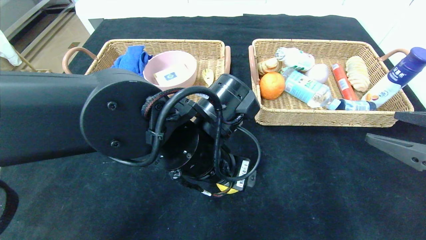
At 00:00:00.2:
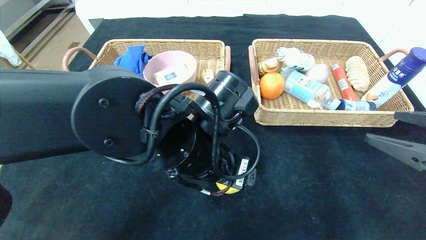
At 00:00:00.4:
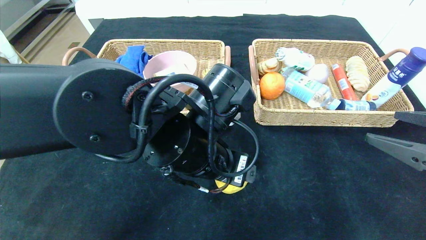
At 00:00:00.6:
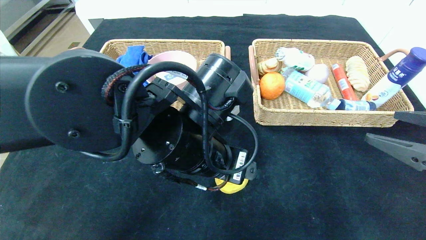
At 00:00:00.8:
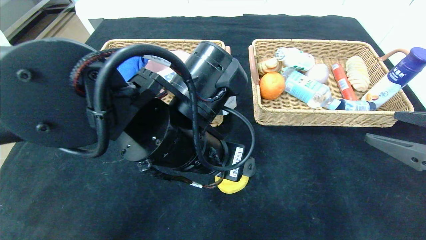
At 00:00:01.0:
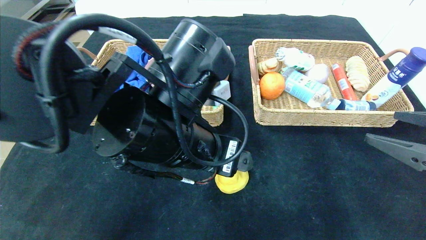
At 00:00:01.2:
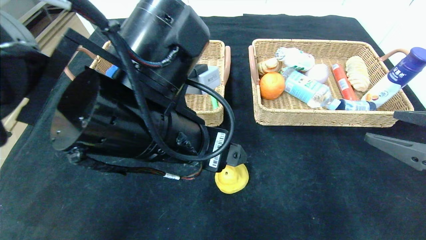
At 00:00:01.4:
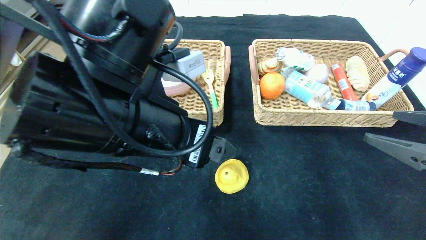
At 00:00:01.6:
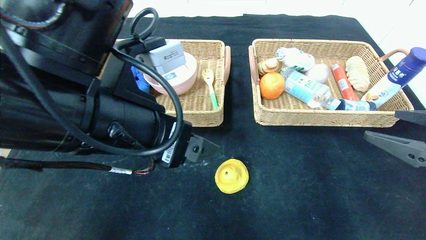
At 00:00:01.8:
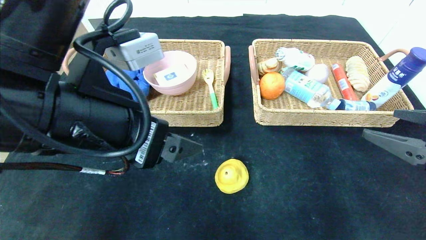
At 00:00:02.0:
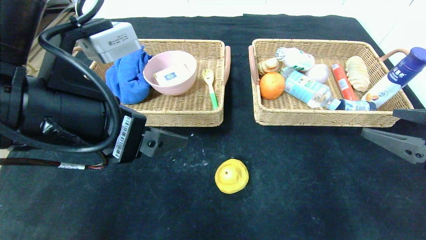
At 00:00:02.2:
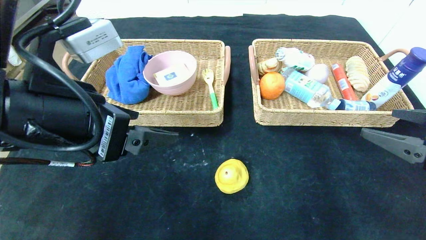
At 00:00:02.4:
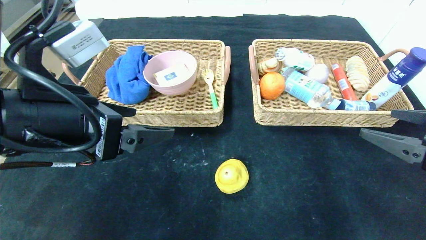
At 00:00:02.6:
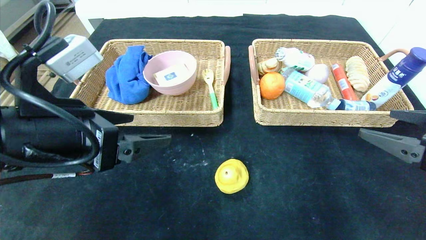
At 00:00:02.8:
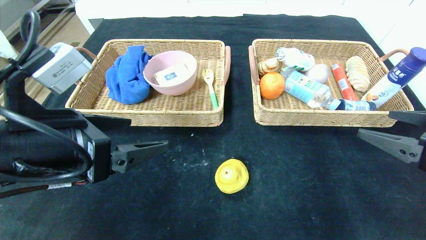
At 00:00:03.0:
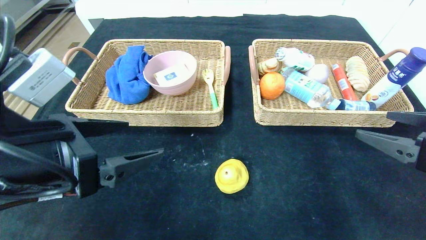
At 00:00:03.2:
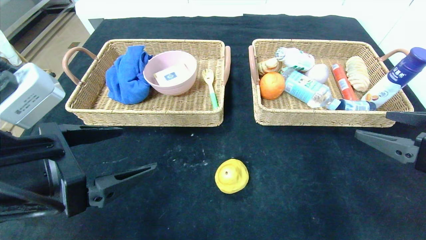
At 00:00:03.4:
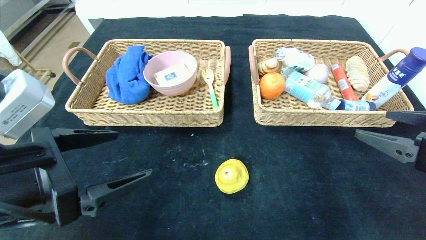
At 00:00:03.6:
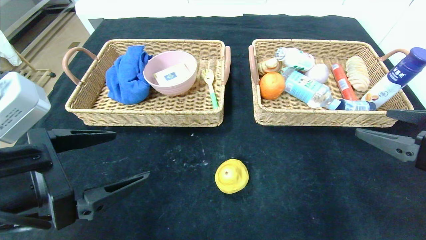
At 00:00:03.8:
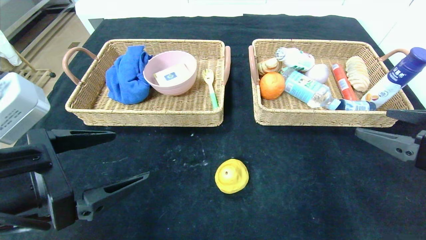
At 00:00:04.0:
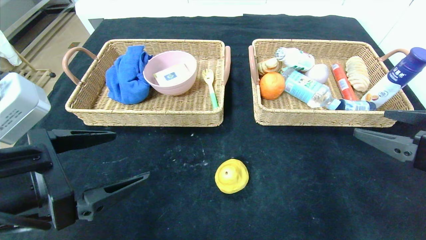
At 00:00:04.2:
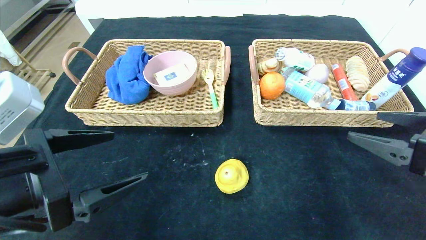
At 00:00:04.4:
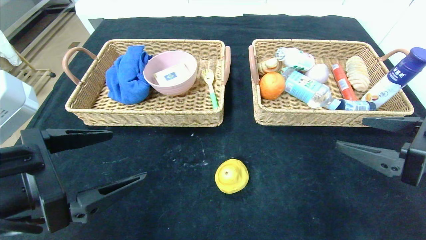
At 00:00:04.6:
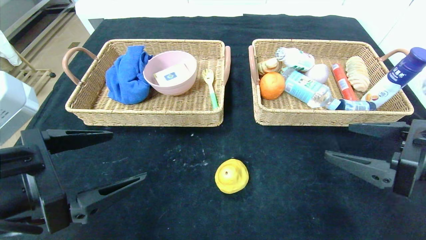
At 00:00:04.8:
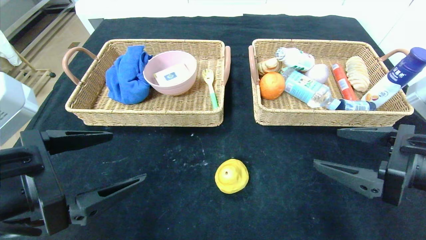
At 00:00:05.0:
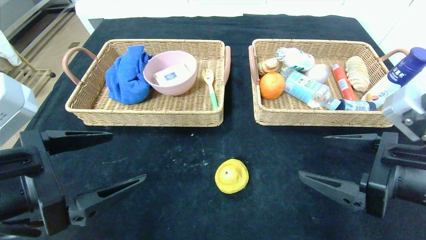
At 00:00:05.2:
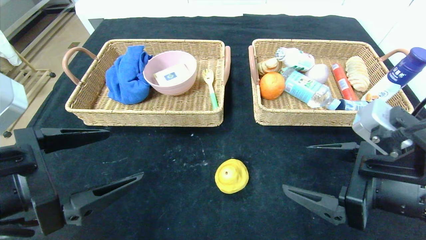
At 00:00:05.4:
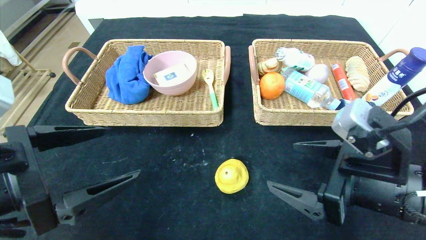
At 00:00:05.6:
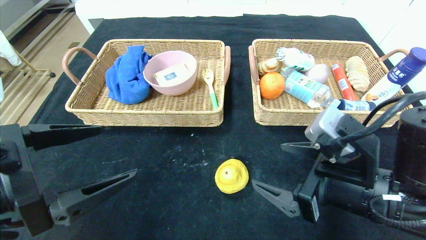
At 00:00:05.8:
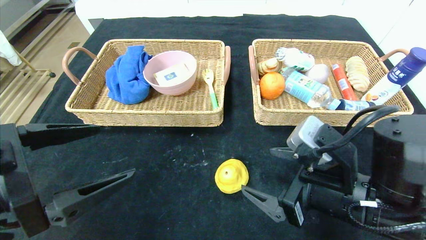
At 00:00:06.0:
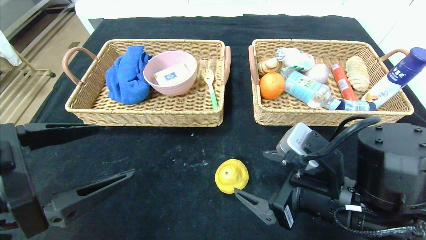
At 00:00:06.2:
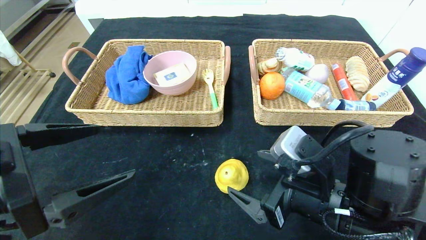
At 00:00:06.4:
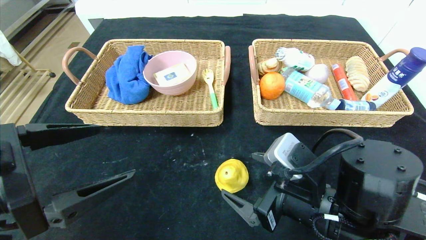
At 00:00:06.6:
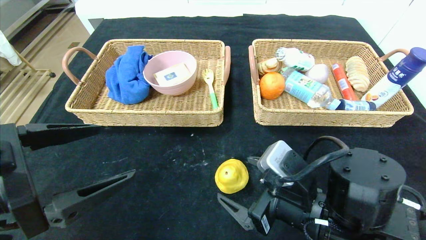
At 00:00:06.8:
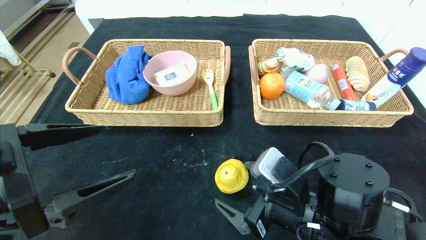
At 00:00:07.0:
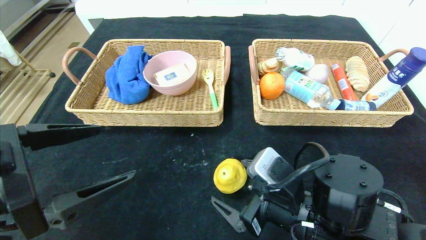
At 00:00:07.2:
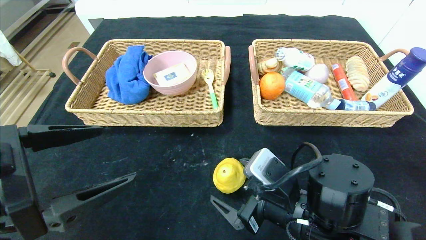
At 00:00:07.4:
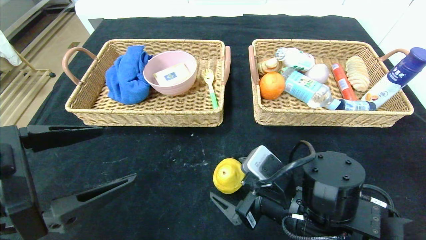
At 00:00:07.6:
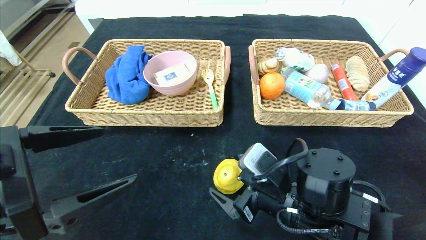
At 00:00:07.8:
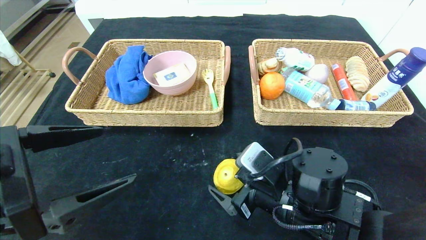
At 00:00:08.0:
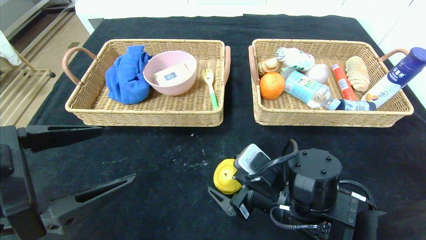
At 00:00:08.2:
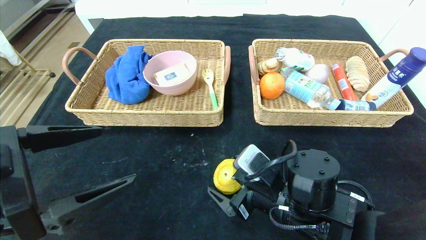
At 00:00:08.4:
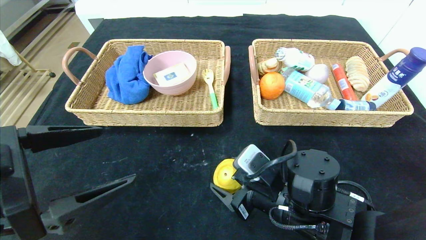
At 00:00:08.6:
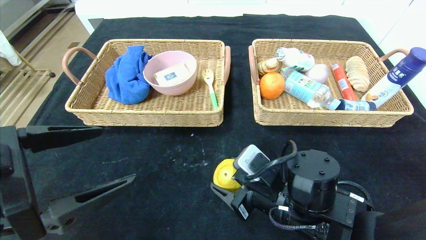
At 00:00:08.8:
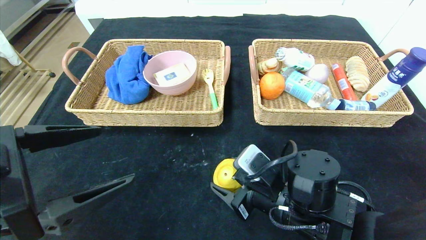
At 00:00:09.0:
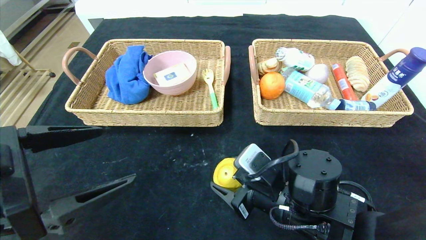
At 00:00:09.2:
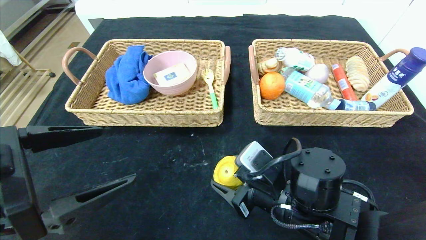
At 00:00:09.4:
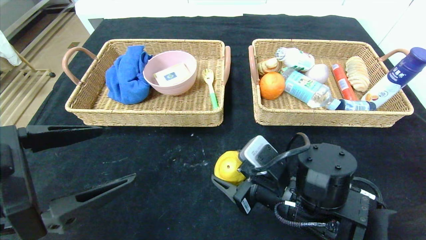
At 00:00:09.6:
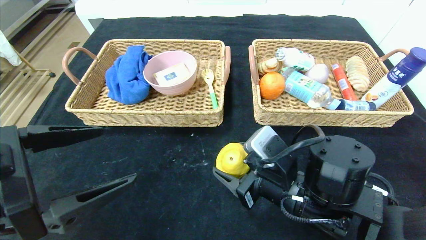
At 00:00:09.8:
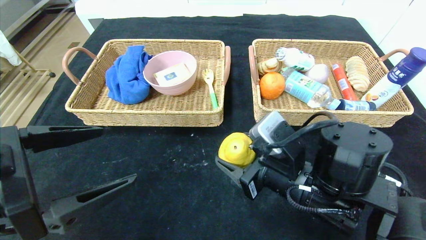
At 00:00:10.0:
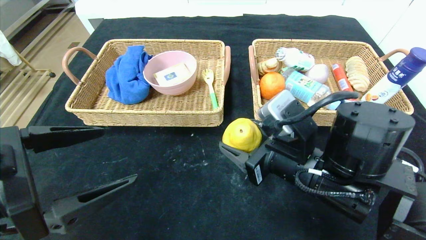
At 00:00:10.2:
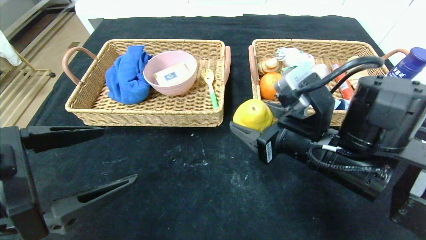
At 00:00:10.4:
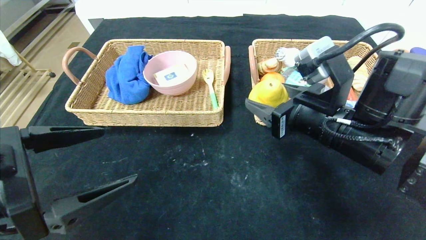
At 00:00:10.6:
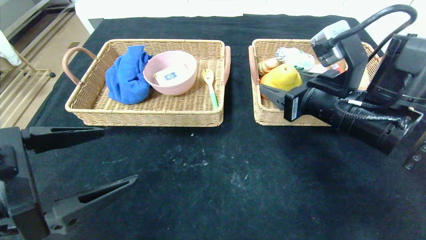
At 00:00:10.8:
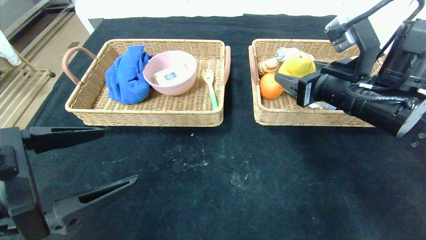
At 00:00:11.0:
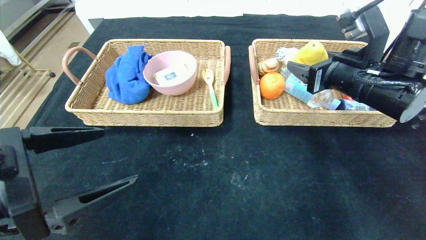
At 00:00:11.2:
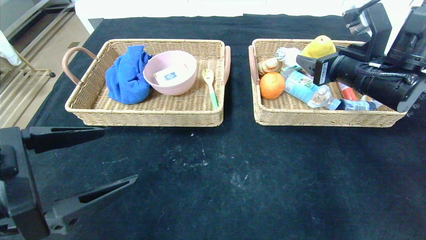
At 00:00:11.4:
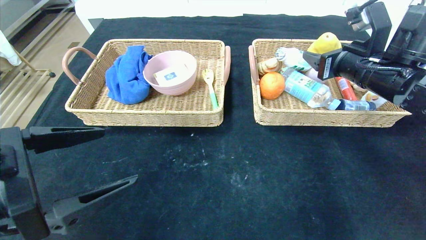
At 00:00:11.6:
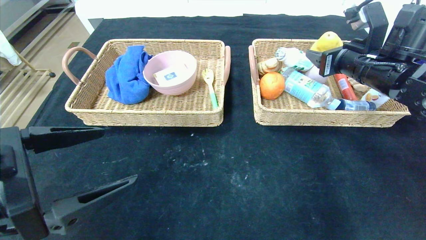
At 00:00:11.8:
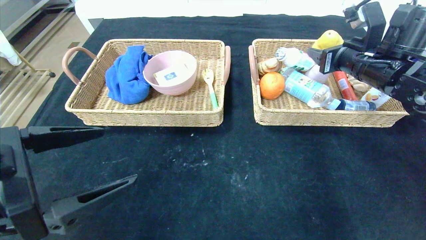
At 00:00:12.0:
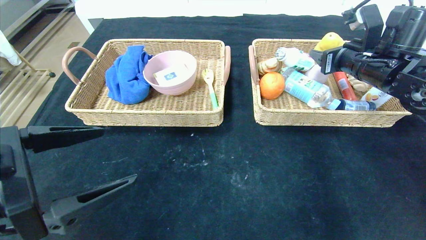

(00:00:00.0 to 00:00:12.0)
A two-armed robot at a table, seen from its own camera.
00:00:00.0 - 00:00:01.6: The left gripper moves to the left, upward and backward, some 15 cm.
00:00:01.6 - 00:00:03.0: The left gripper heads to the left, covering about 10 cm.
00:00:03.0 - 00:00:04.4: The grippers stay close to where they were, moving slightly.
00:00:04.4 - 00:00:06.0: The right gripper heads to the left and downward, covering about 15 cm.
00:00:06.0 - 00:00:07.6: The right gripper shifts by approximately 5 cm.
00:00:07.6 - 00:00:09.0: The right gripper closes up.
00:00:09.0 - 00:00:10.4: The right gripper moves upward and to the right, roughly 15 cm.
00:00:10.4 - 00:00:12.0: The right gripper is displaced forward, to the right and upward by approximately 20 cm.

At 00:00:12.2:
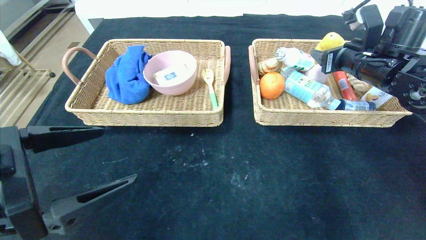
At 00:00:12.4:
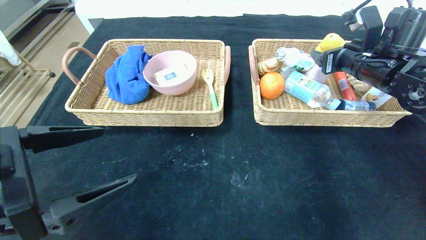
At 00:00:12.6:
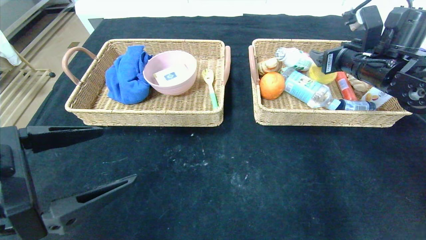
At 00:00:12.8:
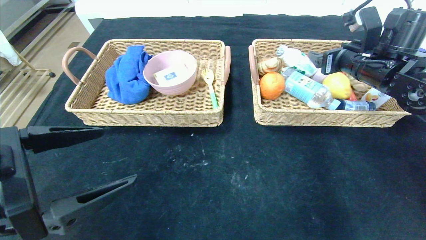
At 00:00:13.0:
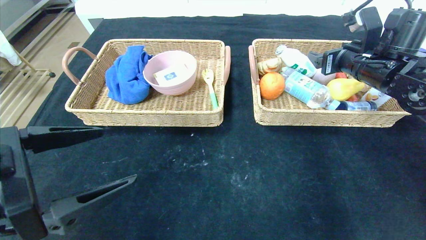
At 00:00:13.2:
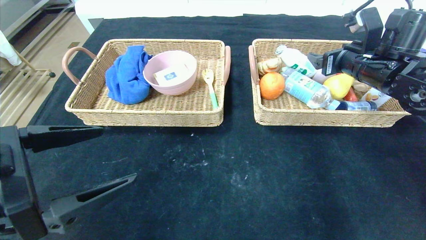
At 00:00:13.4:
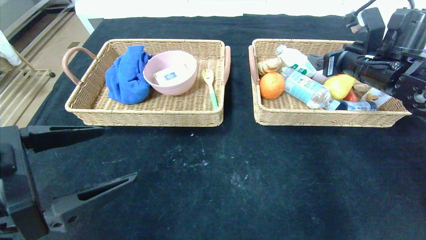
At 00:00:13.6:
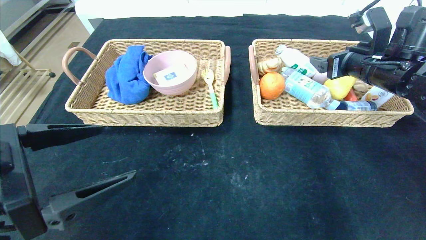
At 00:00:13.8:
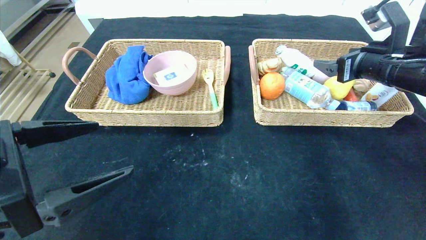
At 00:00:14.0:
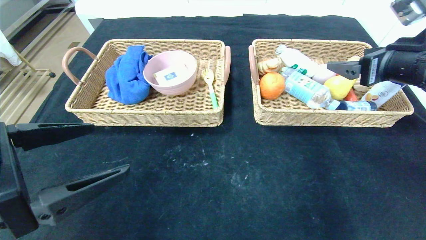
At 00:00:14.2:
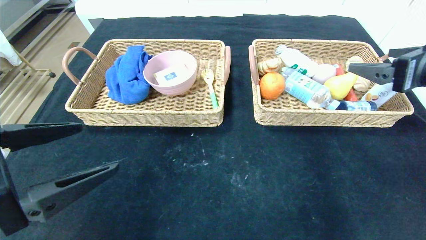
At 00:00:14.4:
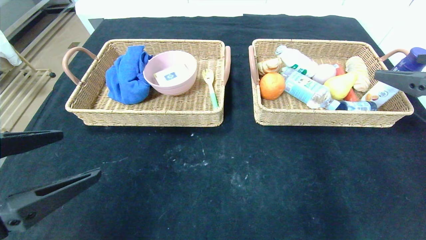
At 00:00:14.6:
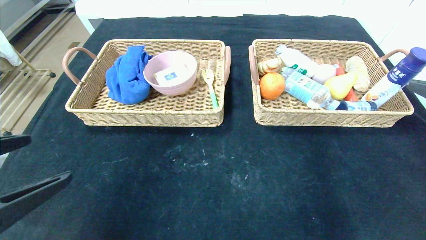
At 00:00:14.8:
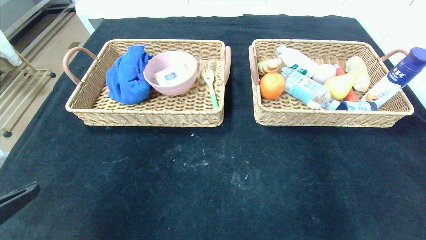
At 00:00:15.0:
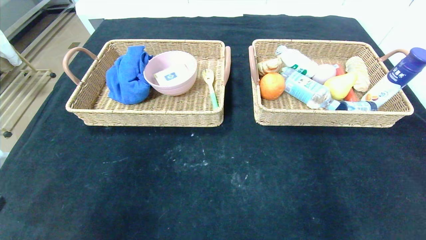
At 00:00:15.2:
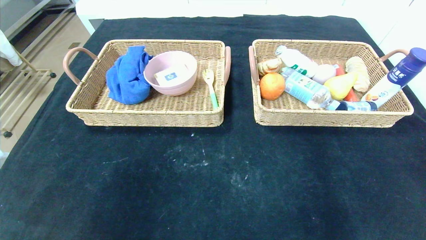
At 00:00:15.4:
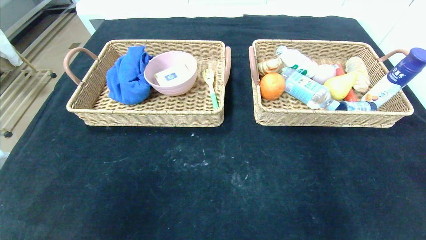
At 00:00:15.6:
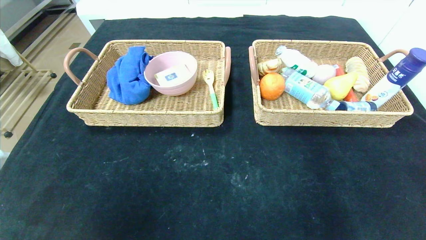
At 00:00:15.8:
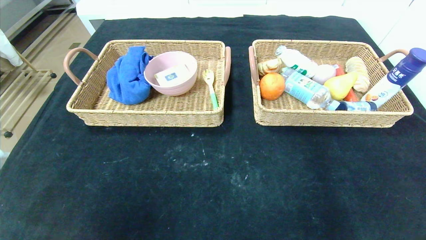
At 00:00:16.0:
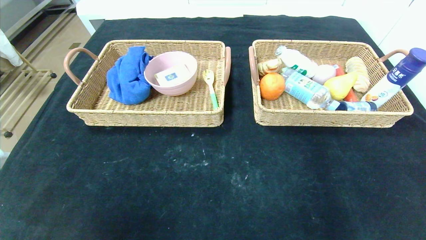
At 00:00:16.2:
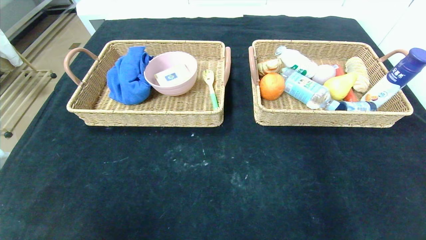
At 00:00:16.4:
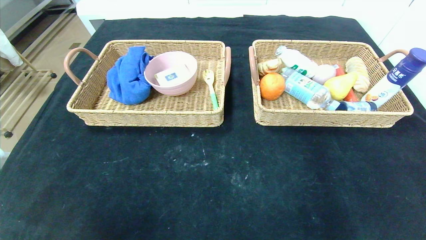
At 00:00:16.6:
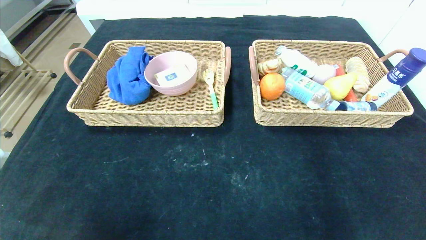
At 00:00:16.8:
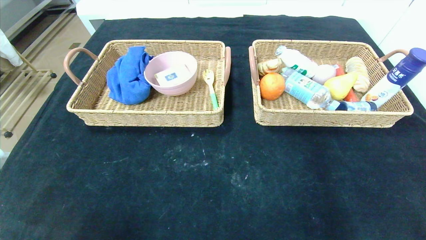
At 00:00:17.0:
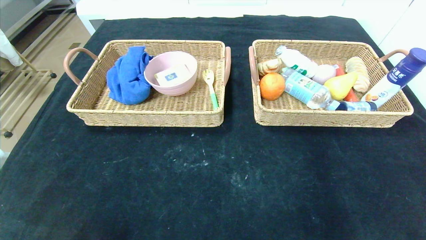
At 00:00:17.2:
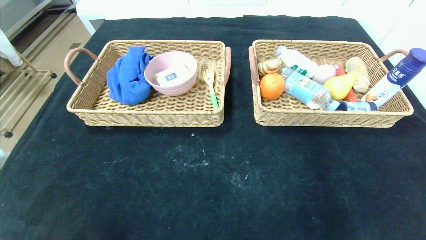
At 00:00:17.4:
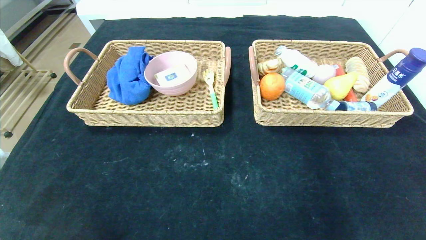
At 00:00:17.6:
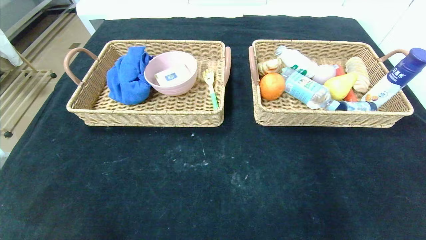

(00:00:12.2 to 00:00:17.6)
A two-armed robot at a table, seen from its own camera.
00:00:12.2 - 00:00:13.6: The right gripper opens.
00:00:13.6 - 00:00:15.0: The left gripper heads backward and to the left, covering approximately 10 cm, while the right gripper moves backward, about 30 cm.
00:00:15.0 - 00:00:16.2: Both grippers travel together backward and downward, approximately 15 cm.
